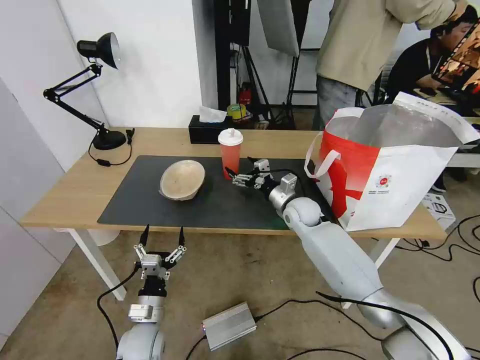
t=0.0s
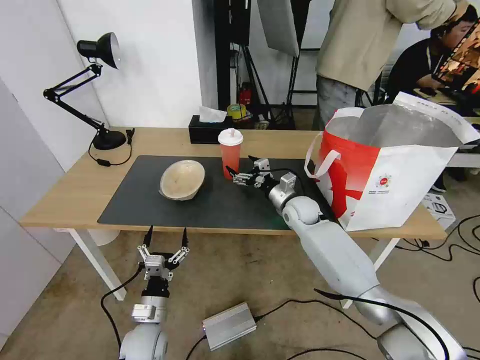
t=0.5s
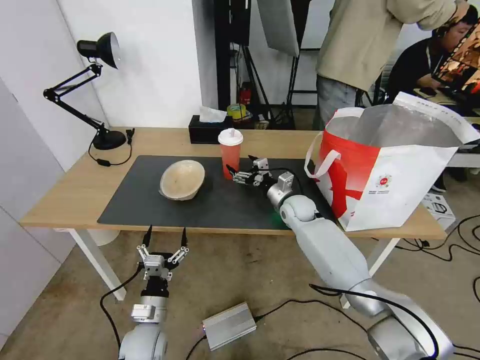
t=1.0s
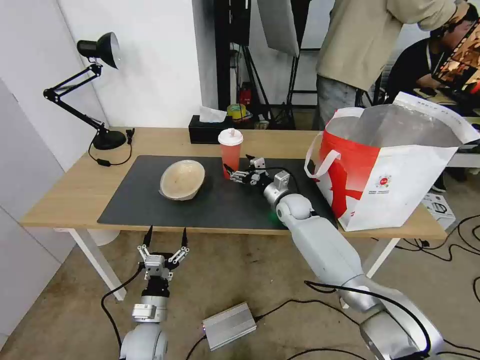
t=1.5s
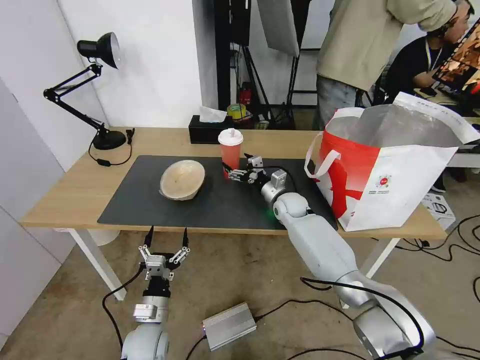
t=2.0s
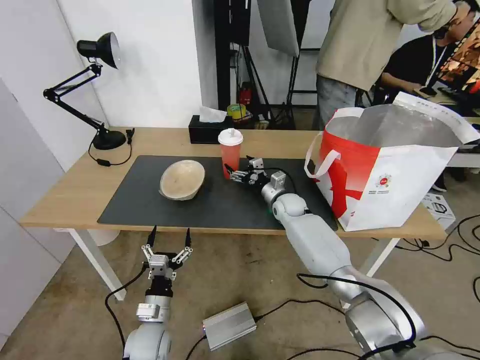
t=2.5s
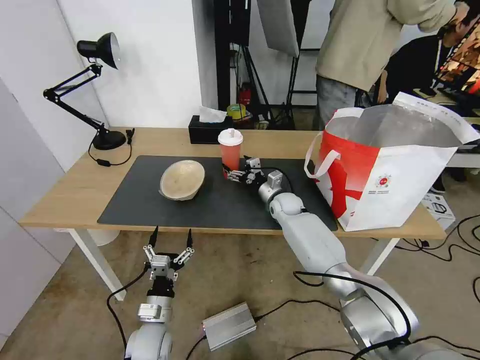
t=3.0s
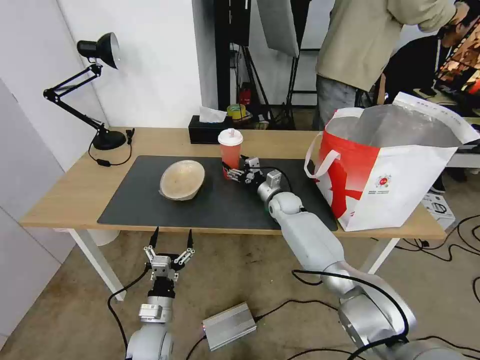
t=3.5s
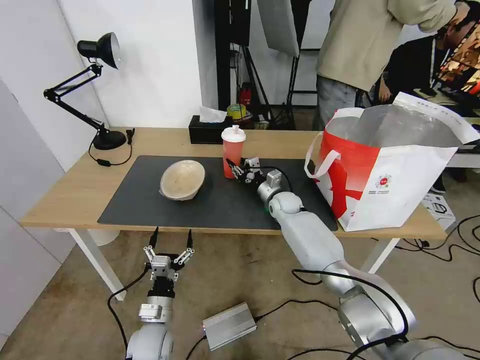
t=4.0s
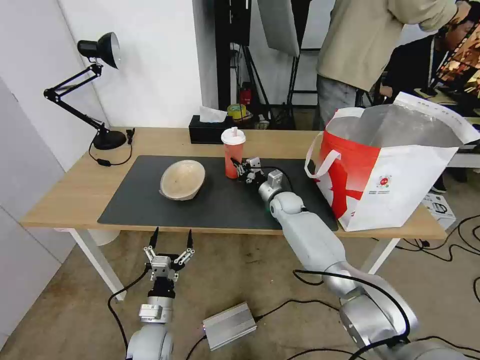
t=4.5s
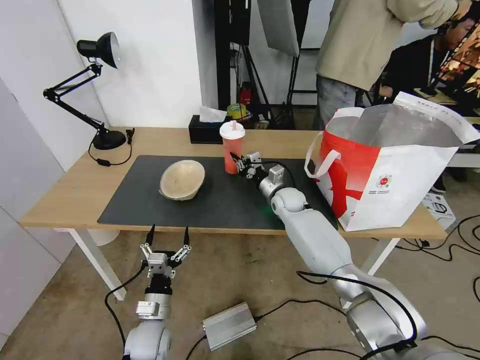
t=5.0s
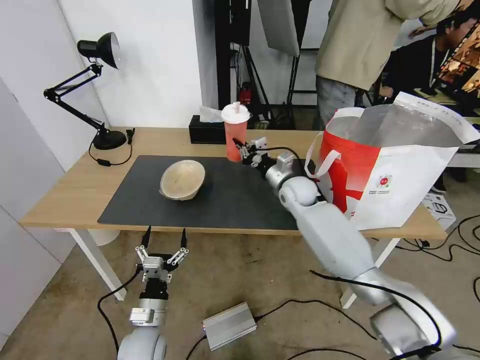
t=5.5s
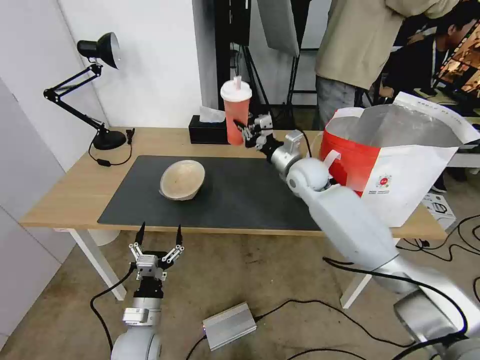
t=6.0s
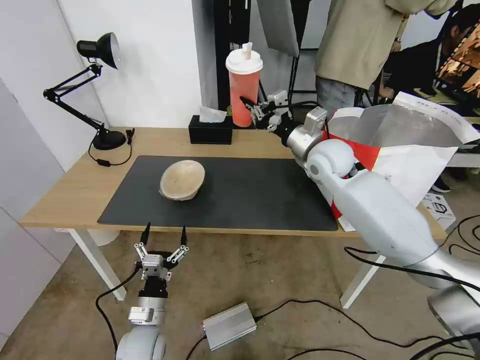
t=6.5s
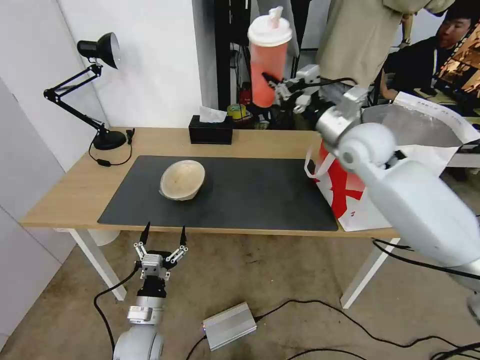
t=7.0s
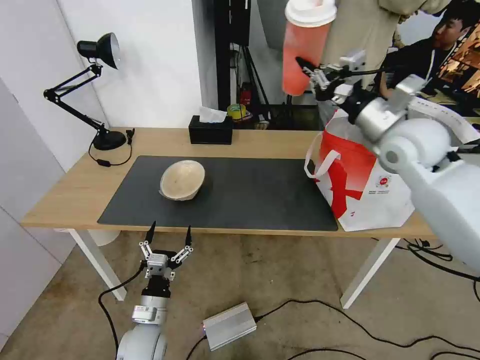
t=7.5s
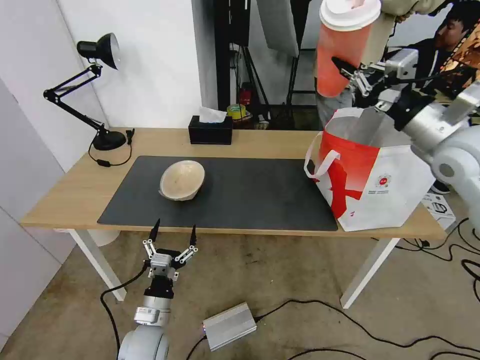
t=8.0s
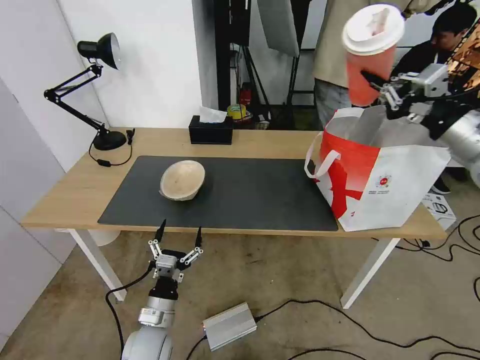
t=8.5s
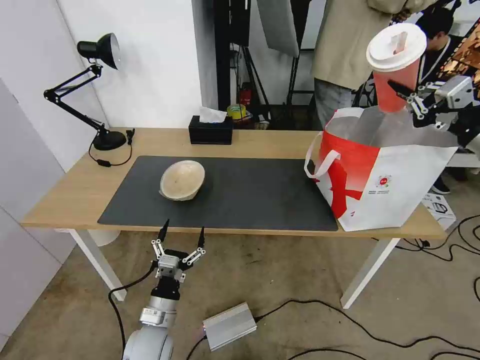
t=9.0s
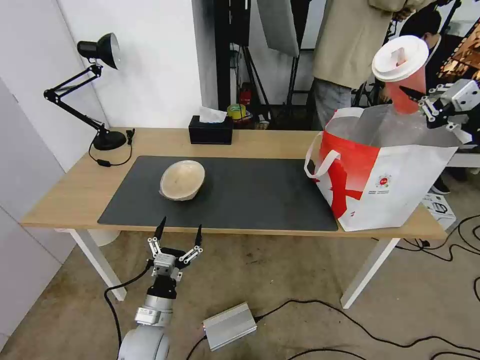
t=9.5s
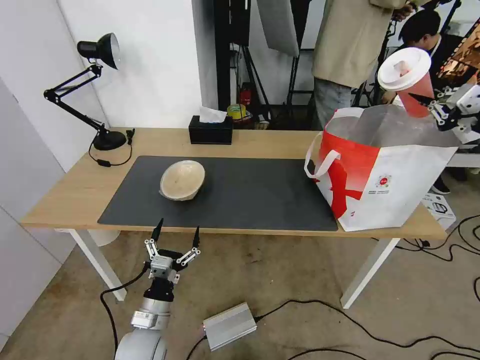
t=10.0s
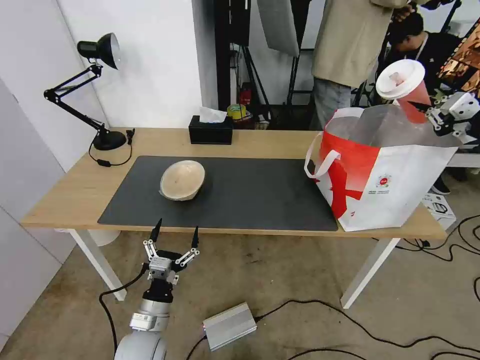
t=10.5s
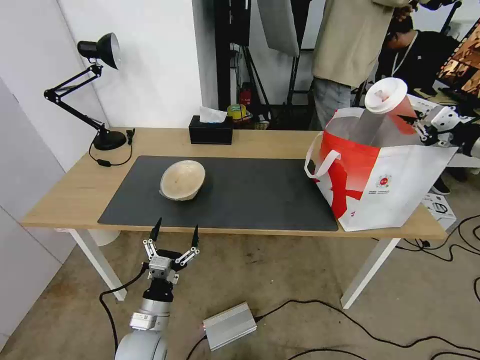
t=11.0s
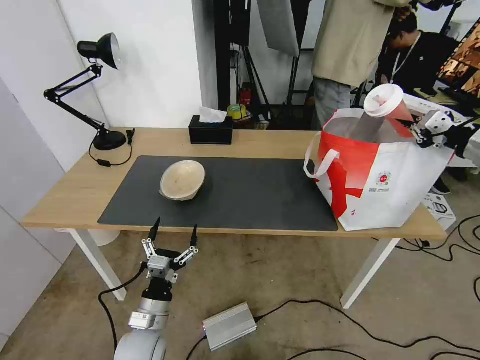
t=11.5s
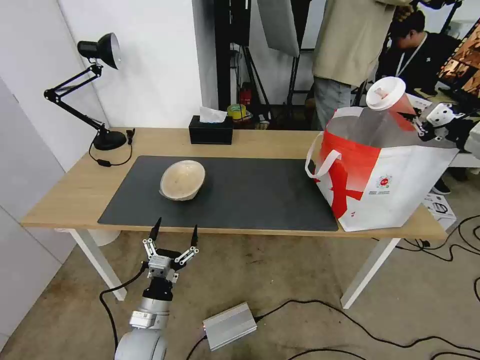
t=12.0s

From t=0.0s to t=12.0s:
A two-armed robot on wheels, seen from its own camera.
Task of the whole recording: Pick up the trash from the table and place it into the takeout bag.
From t=0.0s to t=2.0s: The right gripper ends up about 5 cm from where it was.
From t=2.0s to t=4.0s: The right gripper closes its fingers.
From t=4.0s to t=6.0s: The right gripper goes about 15 cm upward.
From t=6.0s to t=8.0s: The right gripper is displaced to the right, upward and backward by approximately 30 cm.
From t=8.0s to t=10.0s: The right gripper heads to the right, covering roughly 15 cm.
From t=10.0s to t=12.0s: The right gripper heads forward, covering some 5 cm.

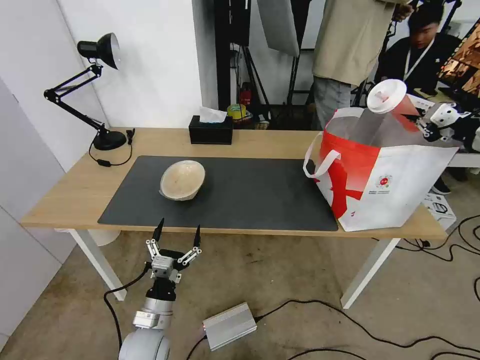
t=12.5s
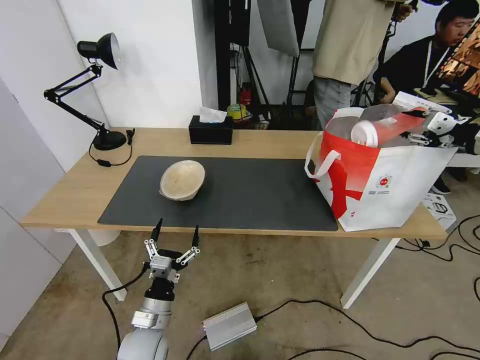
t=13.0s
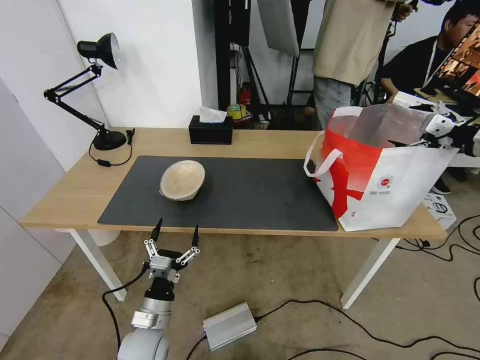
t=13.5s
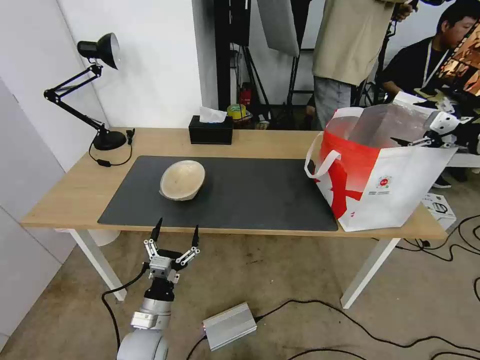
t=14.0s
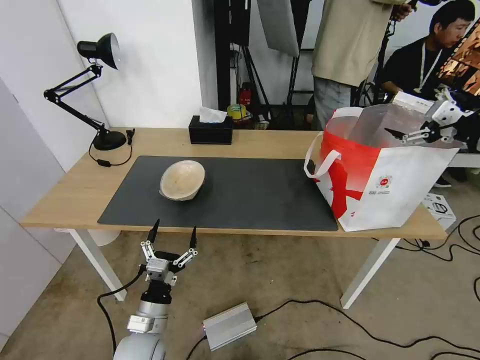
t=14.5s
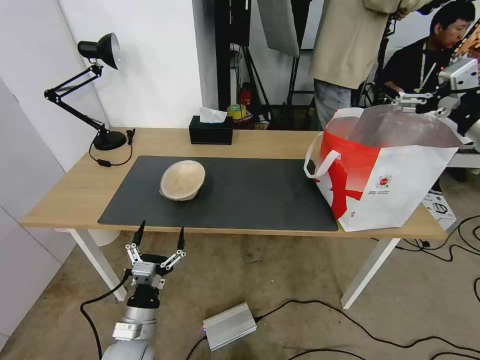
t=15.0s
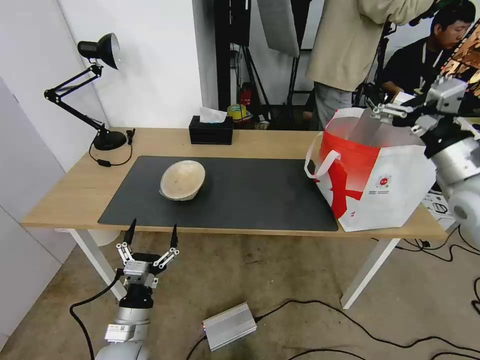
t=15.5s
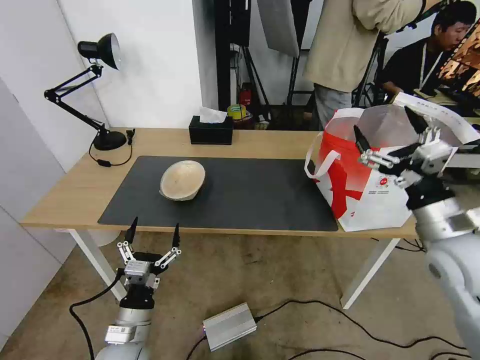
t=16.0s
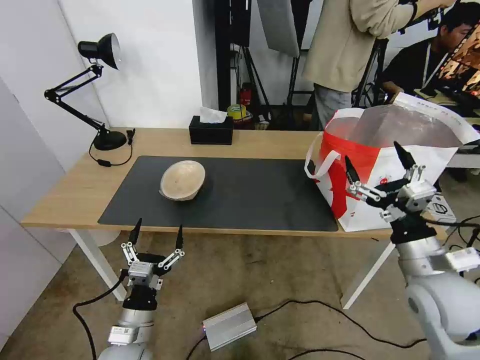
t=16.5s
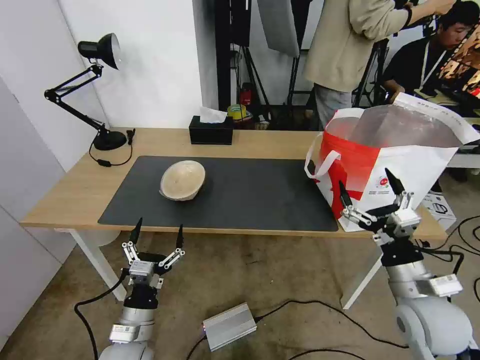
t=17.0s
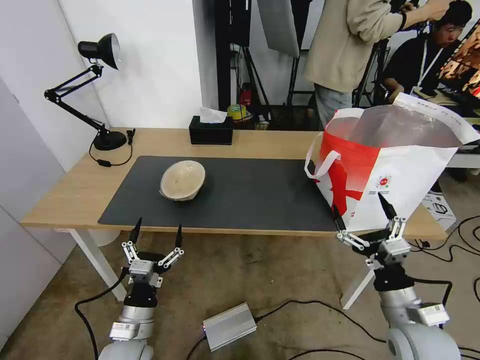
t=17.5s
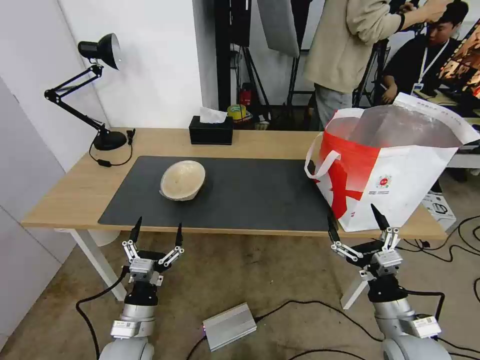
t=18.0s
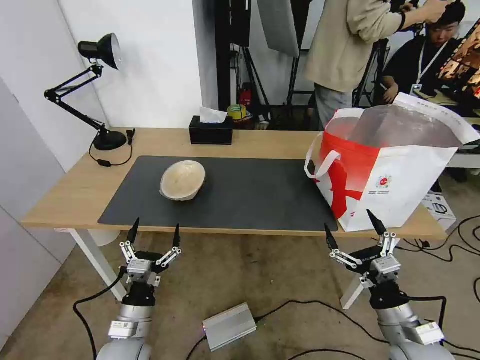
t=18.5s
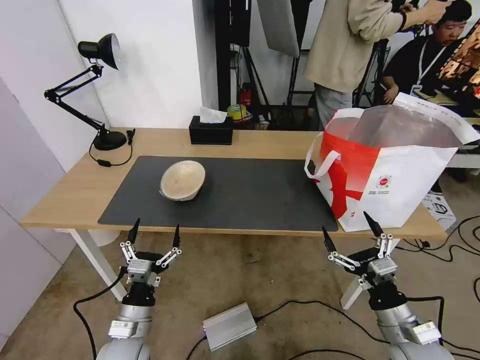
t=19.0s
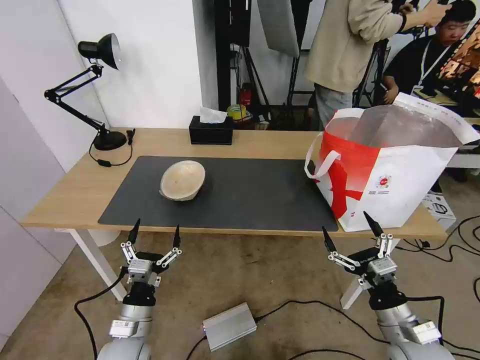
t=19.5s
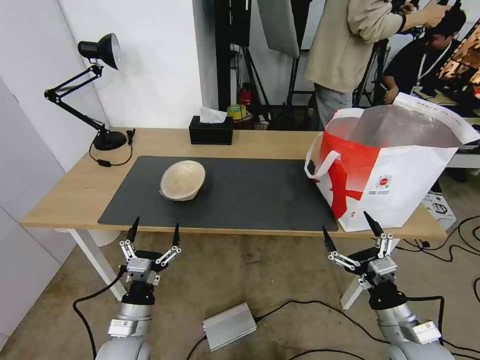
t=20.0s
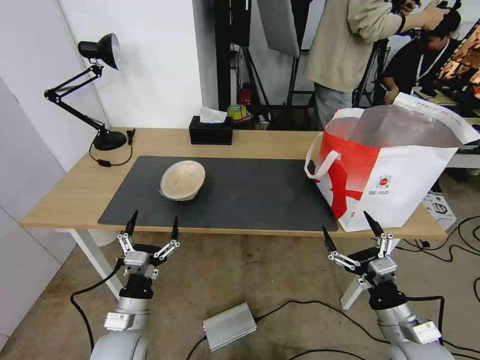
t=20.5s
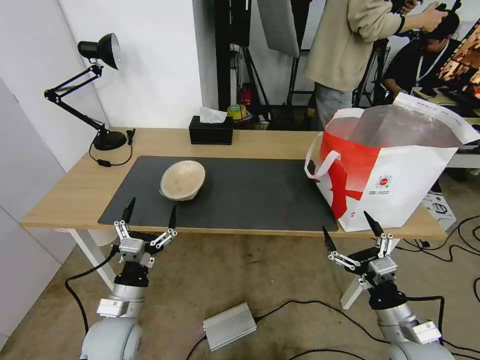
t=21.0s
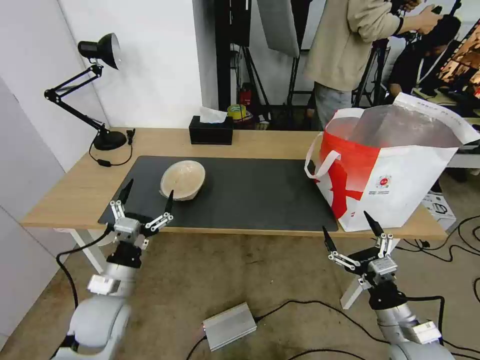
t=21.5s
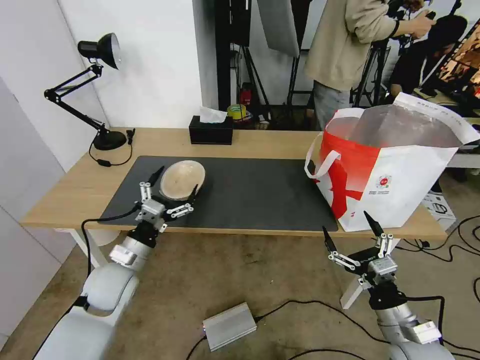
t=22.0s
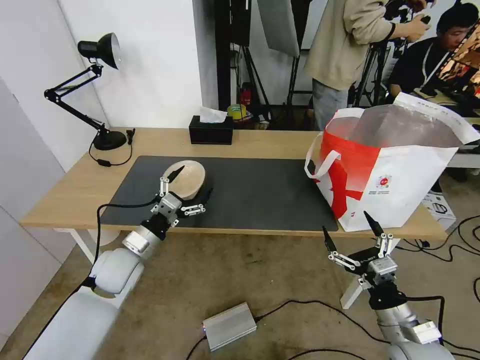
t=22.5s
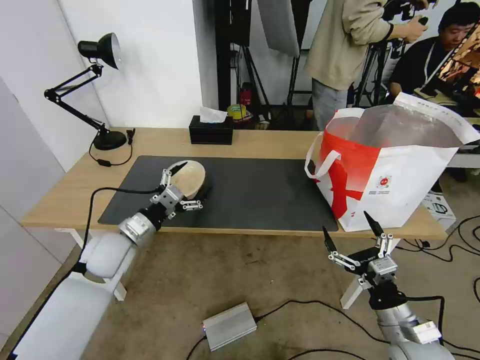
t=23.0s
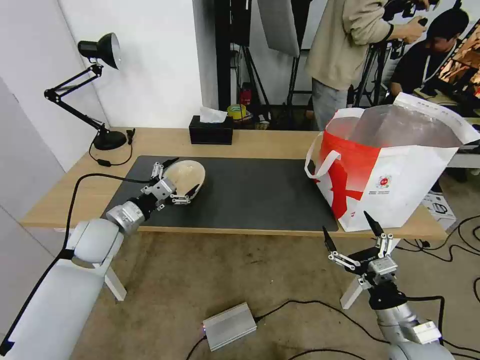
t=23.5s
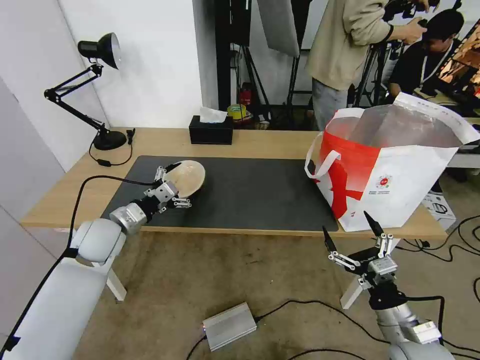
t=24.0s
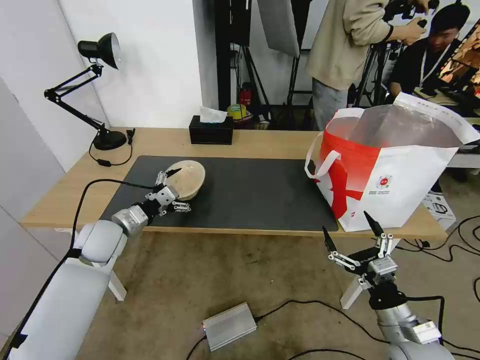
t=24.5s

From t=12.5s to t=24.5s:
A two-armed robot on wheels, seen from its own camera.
Task of the whole recording: Pick up the trash from the table and place it into the takeout bag.
From t=12.5s to t=14.5s: The right gripper opens its fingers.
From t=14.5s to t=16.5s: The right gripper shifts roughly 30 cm downward, to the left and backward.
From t=16.5s to t=18.5s: The right gripper heads downward and backward, covering approximately 15 cm.
From t=18.5s to t=20.5s: The grippers move only a little.
From t=20.5s to t=22.5s: The left gripper is displaced forward and upward by some 15 cm.
From t=22.5s to t=24.5s: The left gripper is displaced forward by some 5 cm.

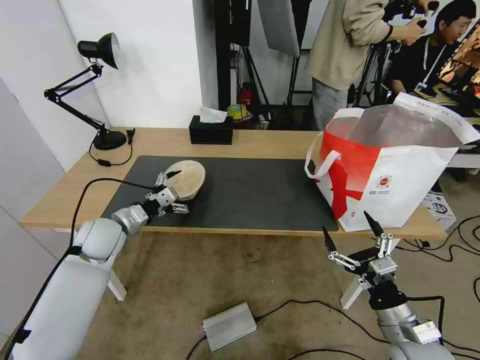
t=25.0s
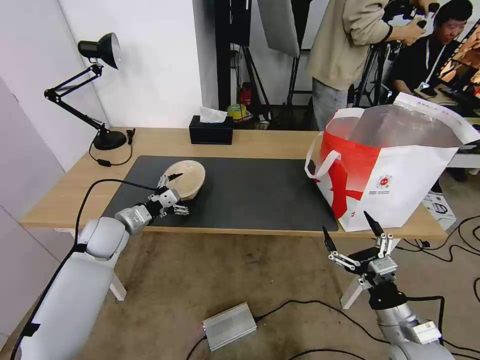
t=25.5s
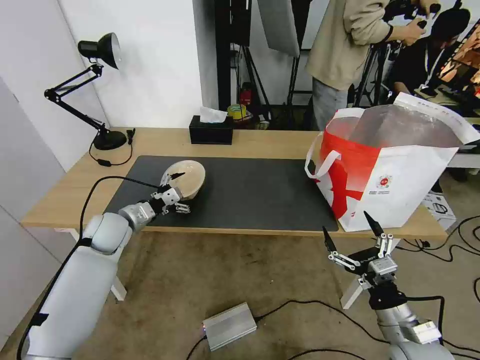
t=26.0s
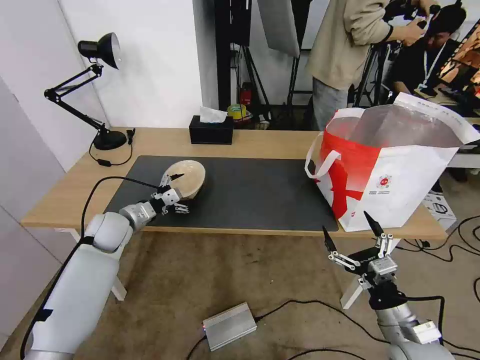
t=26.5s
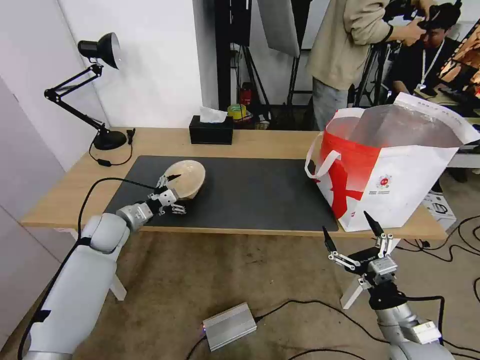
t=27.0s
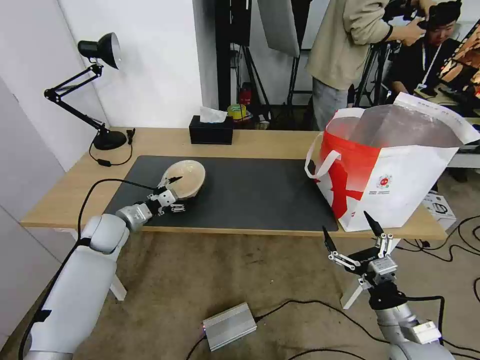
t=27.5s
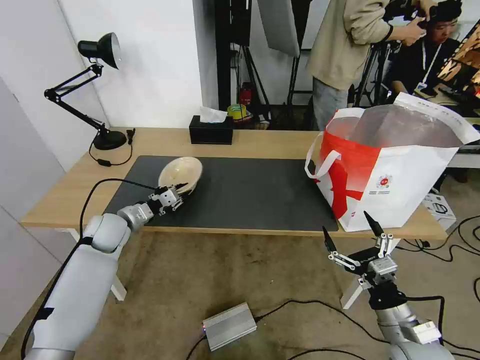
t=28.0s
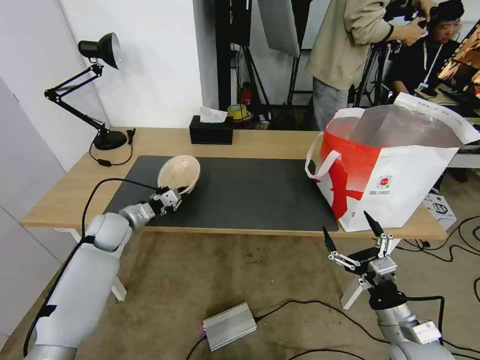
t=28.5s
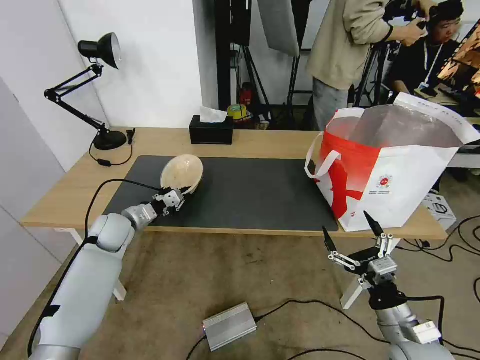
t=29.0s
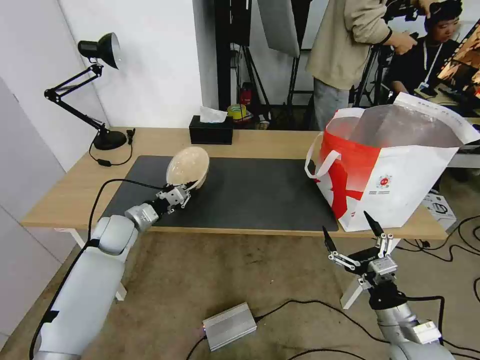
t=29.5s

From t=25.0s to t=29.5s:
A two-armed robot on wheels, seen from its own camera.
Task of the whole recording: Pick up the trash from the table and place it into the takeout bag.
From t=25.0s to t=27.0s: There are only small adjustments of the grippers.
From t=27.0s to t=29.5s: The left gripper closes.
